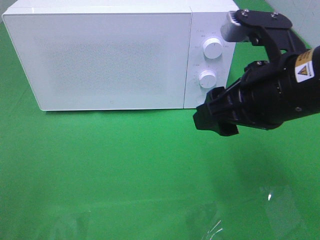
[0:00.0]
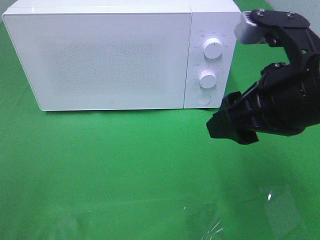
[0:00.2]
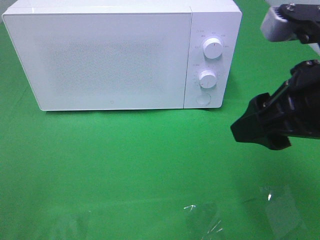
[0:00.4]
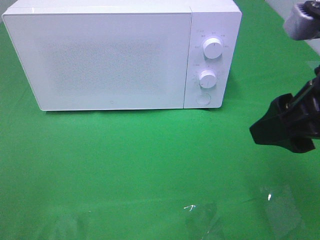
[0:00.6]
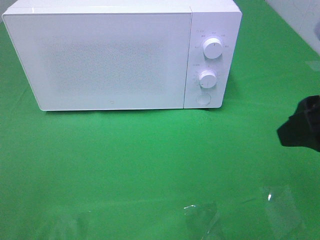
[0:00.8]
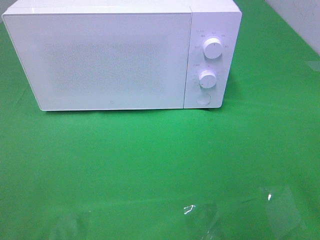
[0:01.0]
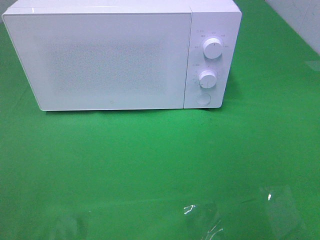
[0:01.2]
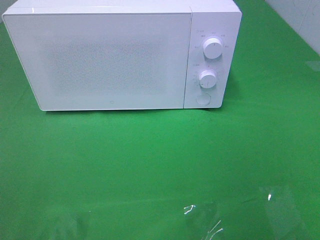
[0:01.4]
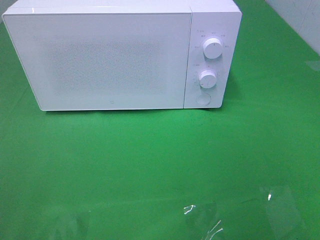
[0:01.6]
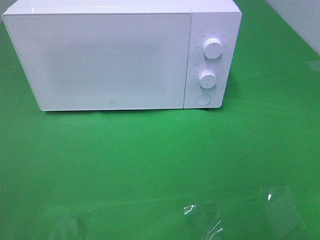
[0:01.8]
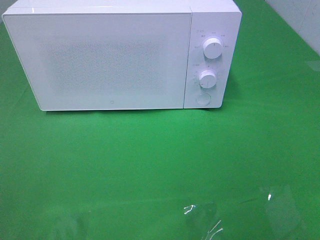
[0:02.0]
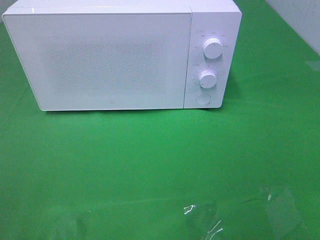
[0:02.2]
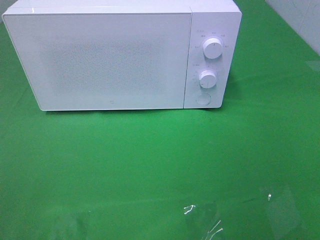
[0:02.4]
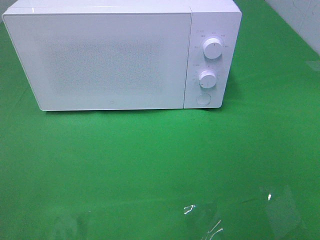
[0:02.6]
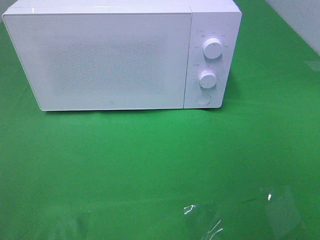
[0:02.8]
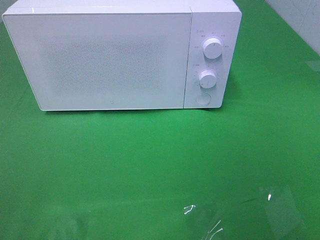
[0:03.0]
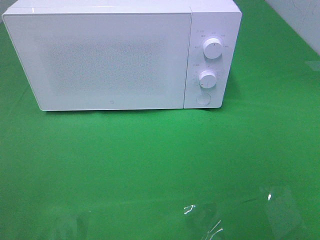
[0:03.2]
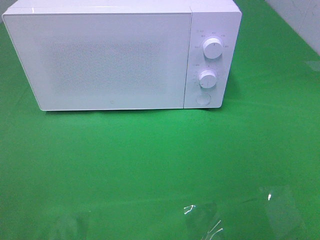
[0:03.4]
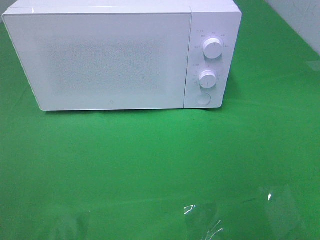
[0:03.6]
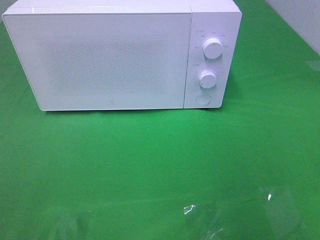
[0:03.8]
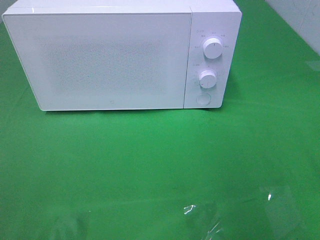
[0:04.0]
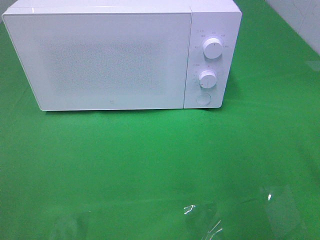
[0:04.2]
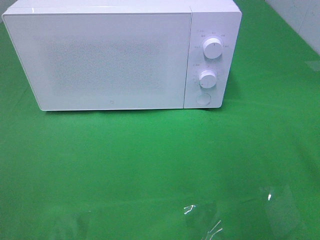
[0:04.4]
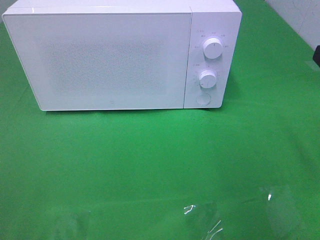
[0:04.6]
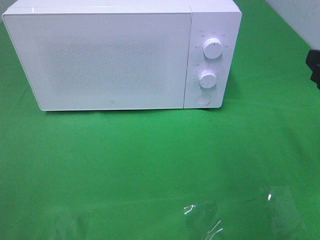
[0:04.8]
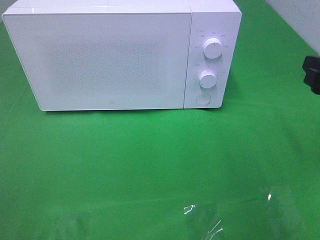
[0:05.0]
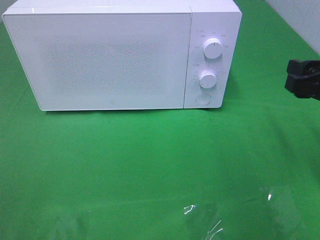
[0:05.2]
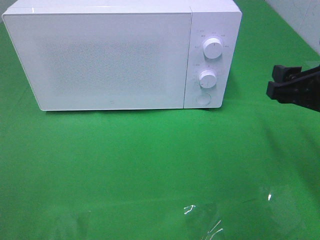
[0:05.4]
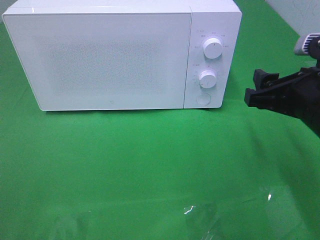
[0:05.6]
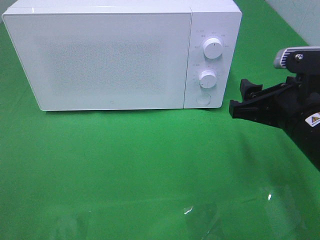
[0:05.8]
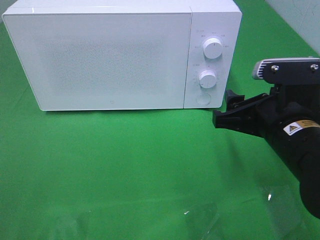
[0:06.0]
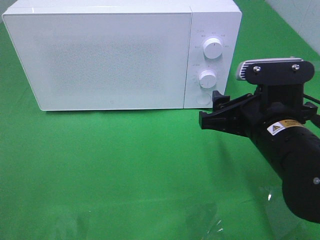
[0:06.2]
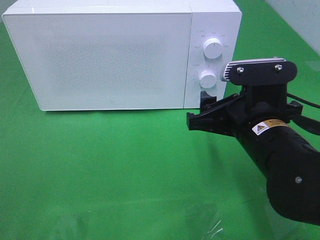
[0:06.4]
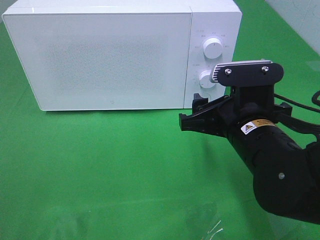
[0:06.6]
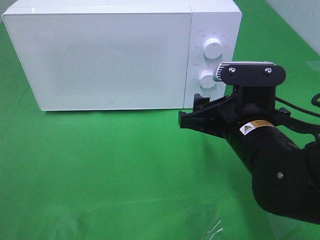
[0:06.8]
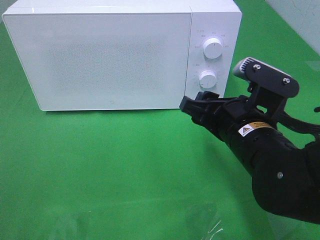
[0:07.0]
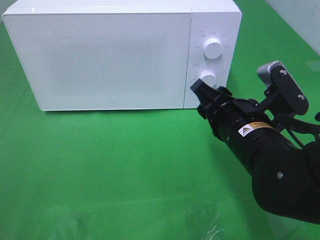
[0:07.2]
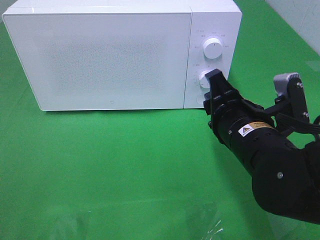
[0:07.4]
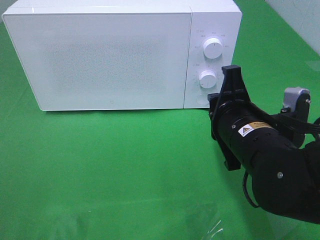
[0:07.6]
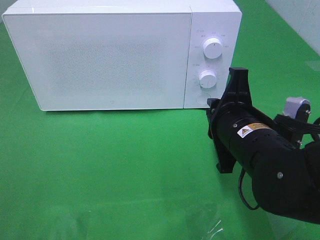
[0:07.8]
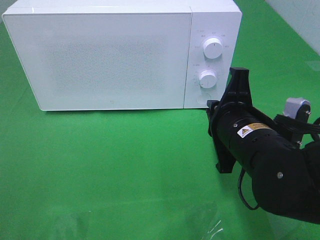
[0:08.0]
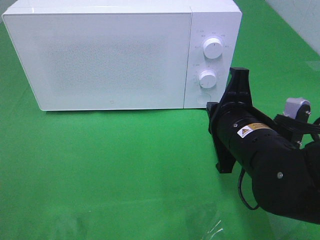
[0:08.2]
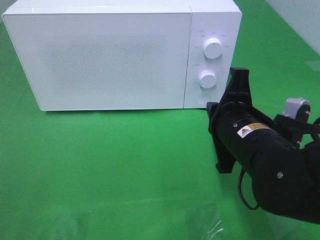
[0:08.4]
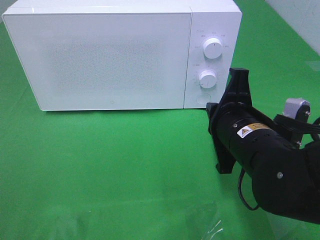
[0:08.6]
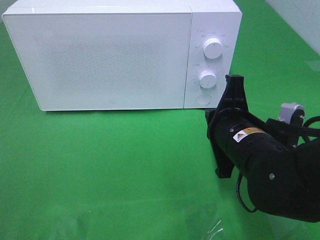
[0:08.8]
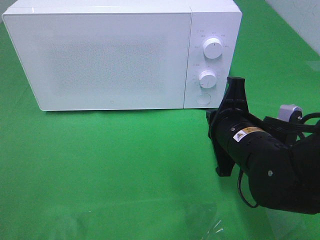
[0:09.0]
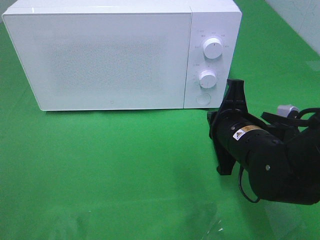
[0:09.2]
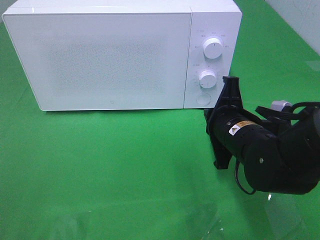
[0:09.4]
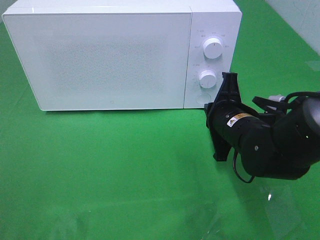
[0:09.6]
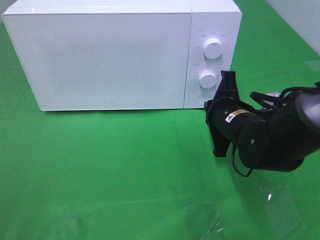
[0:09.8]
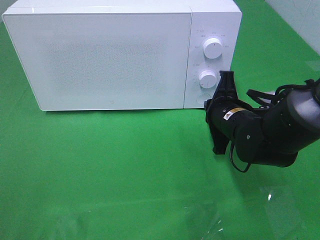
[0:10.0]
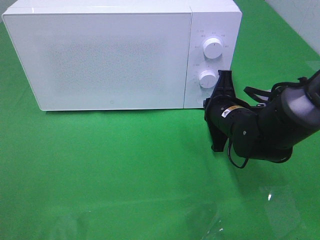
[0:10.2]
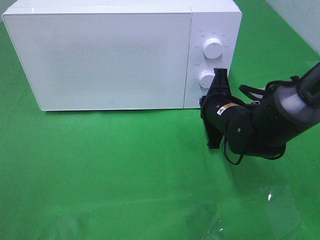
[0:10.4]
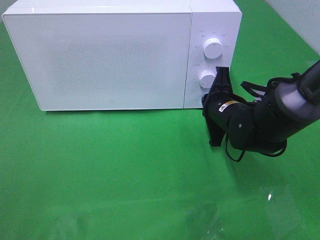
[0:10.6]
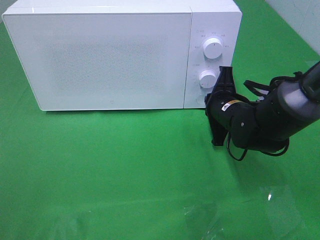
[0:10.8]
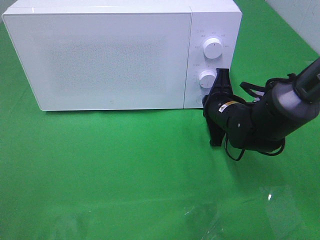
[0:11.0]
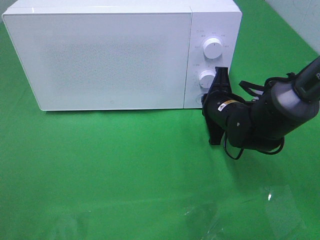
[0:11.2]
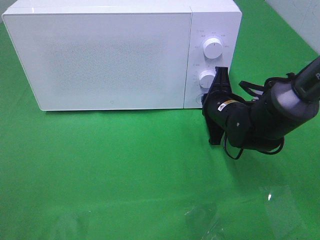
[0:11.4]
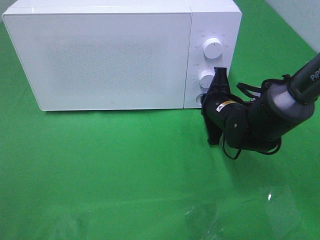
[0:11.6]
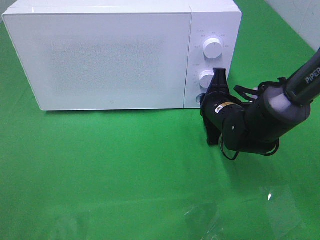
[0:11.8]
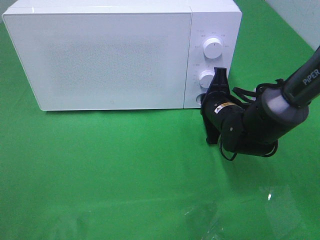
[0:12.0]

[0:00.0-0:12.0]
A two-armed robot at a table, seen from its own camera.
Task of the whole recording: Heat the burger.
0:00.0 to 0:01.6: The right gripper moves backward and to the right, roughly 25 cm.
0:04.4 to 0:06.0: The right gripper goes some 15 cm to the left and downward.
0:06.0 to 0:07.6: The right gripper closes its fingers.
0:07.6 to 0:09.0: The right gripper closes up.
0:09.0 to 0:10.4: The right gripper travels forward by approximately 10 cm.
0:10.4 to 0:12.0: There are only small adjustments of the grippers.

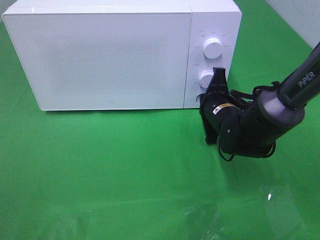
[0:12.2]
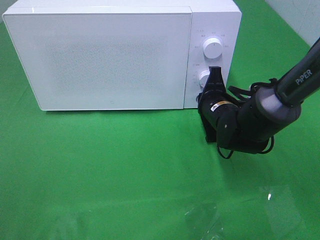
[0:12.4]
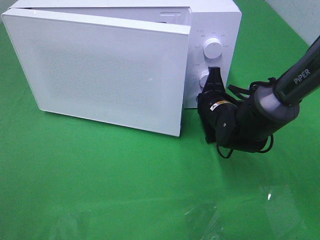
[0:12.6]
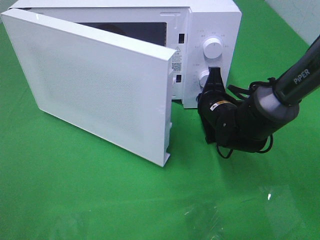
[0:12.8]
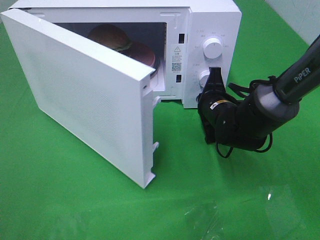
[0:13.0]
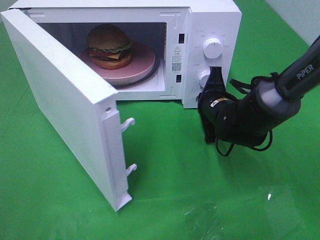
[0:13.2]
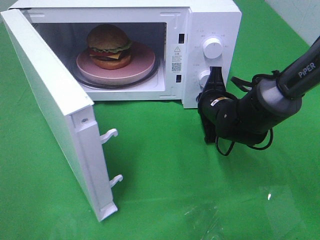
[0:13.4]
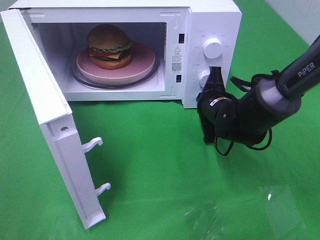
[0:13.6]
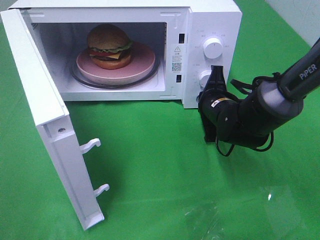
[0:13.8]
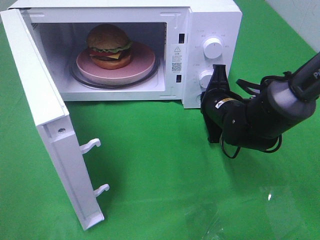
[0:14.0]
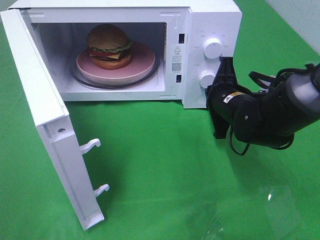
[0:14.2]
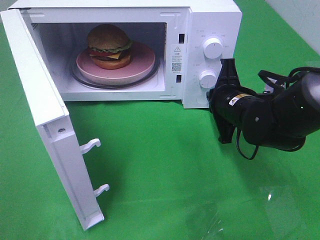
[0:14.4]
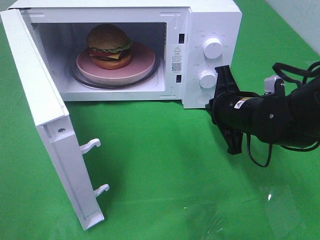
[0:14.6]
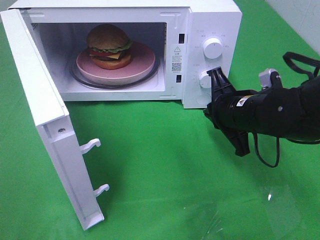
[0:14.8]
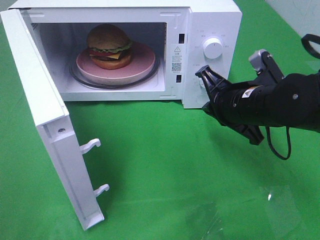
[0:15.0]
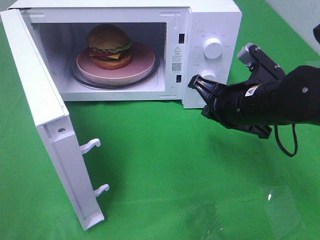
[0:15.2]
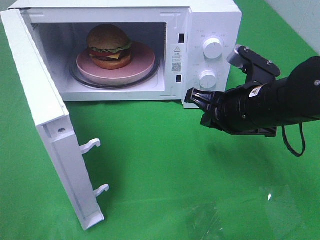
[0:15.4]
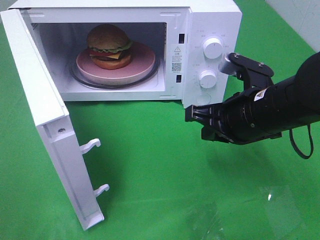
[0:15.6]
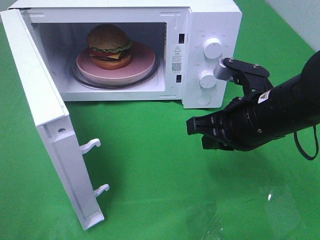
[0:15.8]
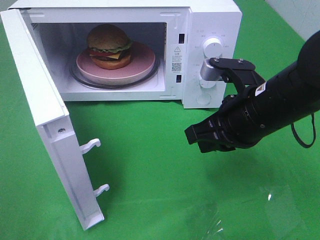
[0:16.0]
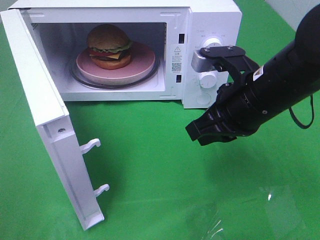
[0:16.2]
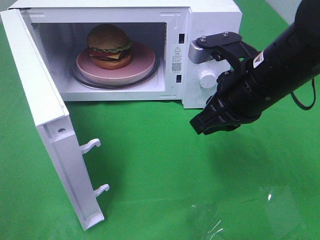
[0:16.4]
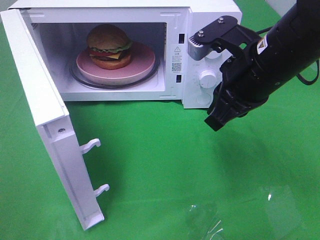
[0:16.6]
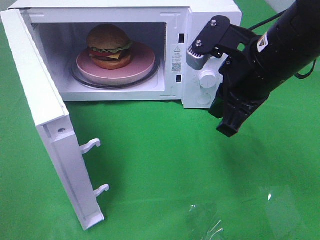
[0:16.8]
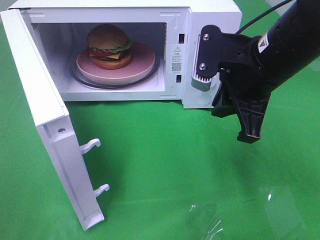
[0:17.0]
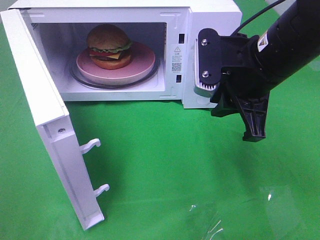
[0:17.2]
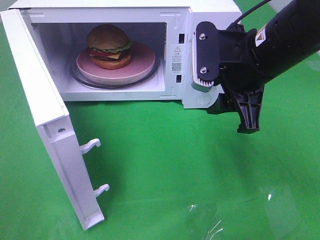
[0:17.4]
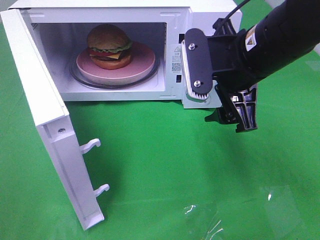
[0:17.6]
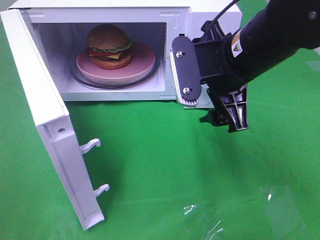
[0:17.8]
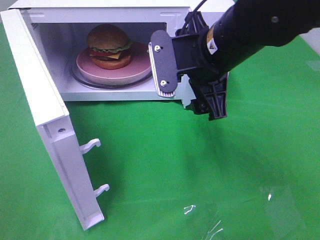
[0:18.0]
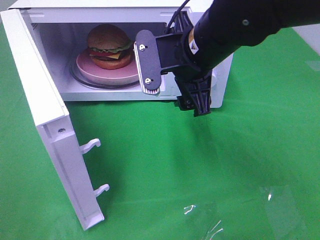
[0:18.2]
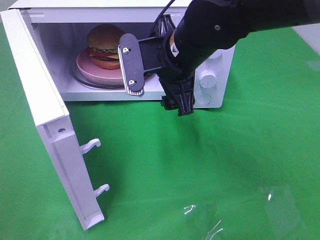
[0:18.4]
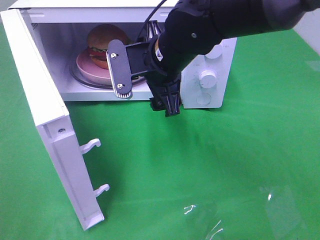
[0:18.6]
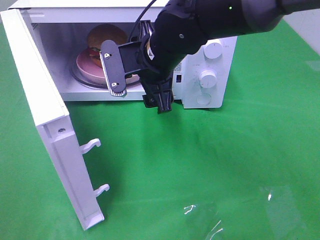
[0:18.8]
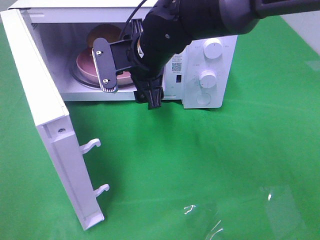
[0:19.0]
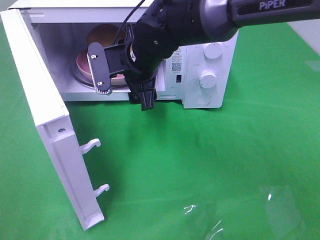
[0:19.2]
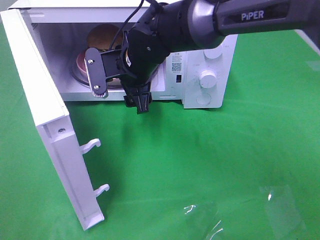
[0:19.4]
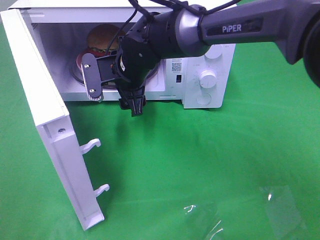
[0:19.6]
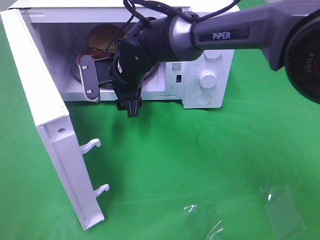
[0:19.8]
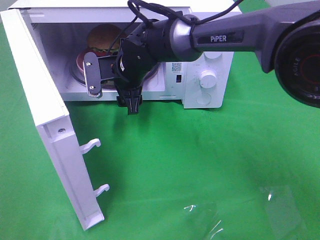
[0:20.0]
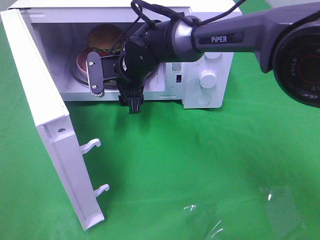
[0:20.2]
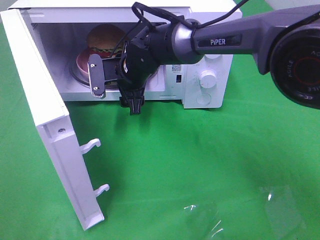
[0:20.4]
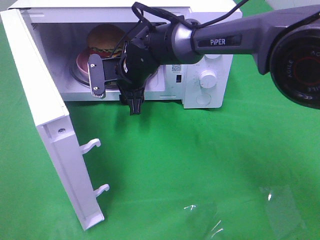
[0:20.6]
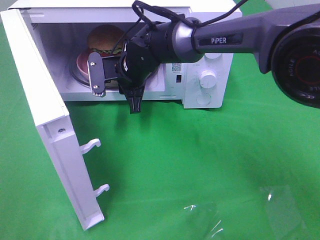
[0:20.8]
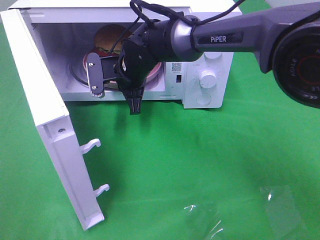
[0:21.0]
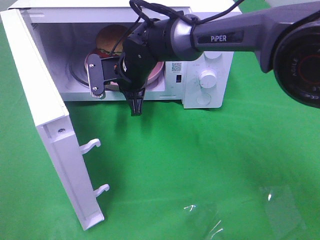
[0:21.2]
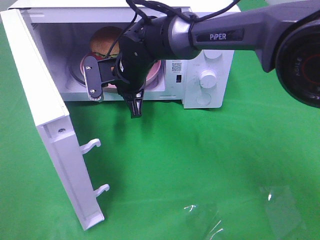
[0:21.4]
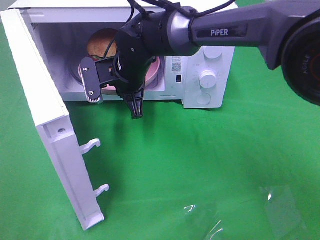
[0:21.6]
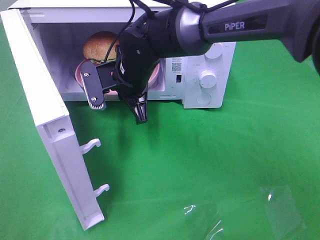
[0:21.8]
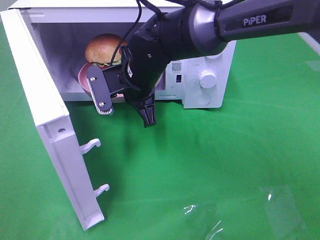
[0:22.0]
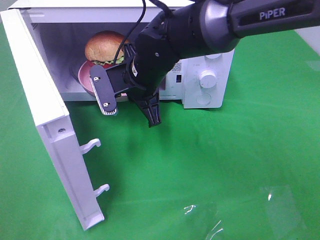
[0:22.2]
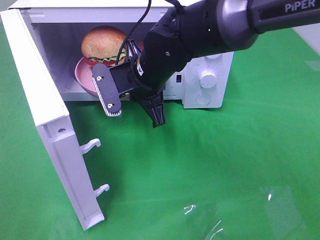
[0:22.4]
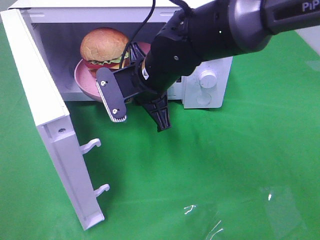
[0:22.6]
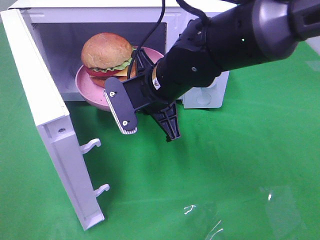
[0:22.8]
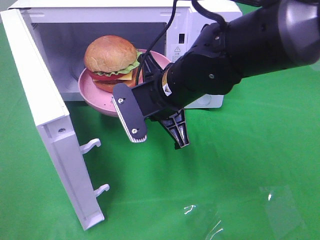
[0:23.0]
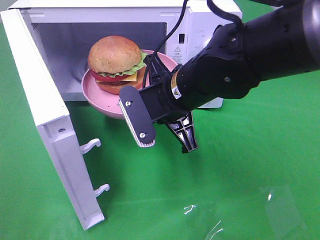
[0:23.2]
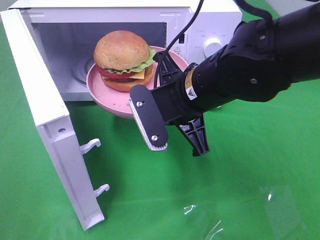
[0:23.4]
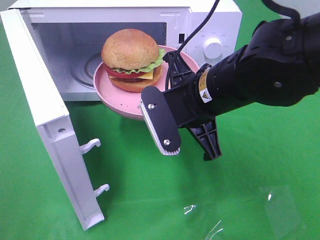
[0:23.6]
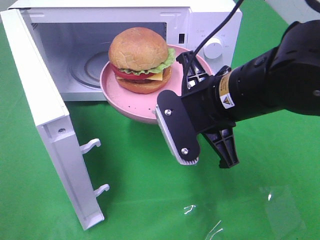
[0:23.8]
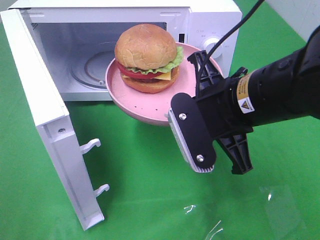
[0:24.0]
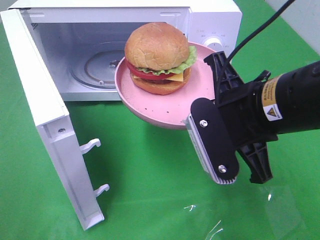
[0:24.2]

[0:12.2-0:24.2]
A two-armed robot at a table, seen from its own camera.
Task of the whole recording: Heat the burger.
Step, 0:12.2 to 0:14.2: Right hand: press the switch.
Step, 0:14.4 to 0:21.0: Right hand: grab the plate with the hamburger.
0:13.8 to 0:15.2: The right gripper shifts about 10 cm upward and backward.
0:15.2 to 0:16.6: The right gripper travels upward by roughly 10 cm.
0:16.6 to 0:18.2: The right gripper shifts roughly 10 cm to the left, and opens.
0:18.2 to 0:19.8: The right gripper moves to the left, forward and downward, some 15 cm.
0:19.8 to 0:21.2: The right gripper closes up.
0:21.2 to 0:22.6: The right gripper is displaced backward by some 10 cm.
0:22.6 to 0:24.2: The right gripper goes some 15 cm backward and to the right.
